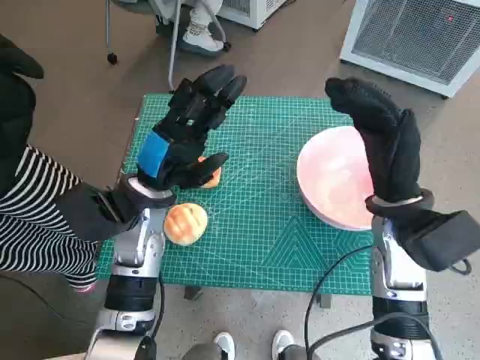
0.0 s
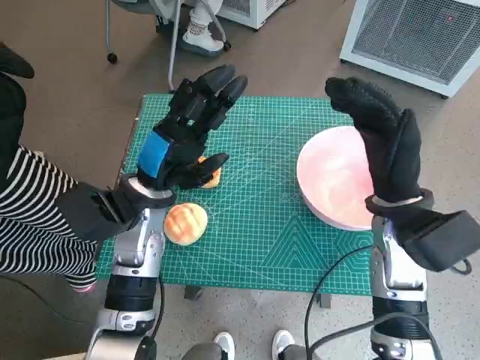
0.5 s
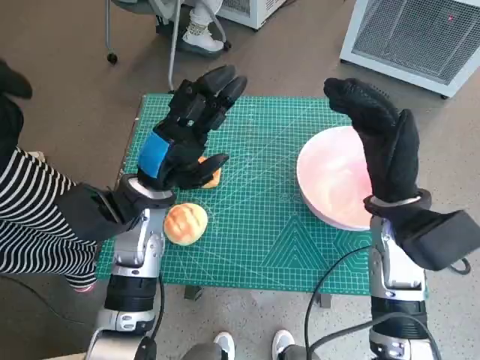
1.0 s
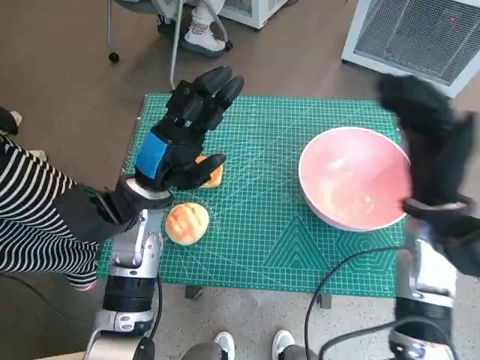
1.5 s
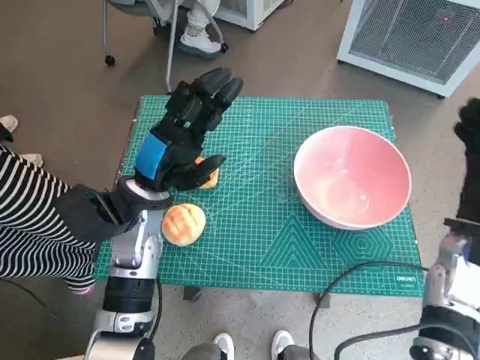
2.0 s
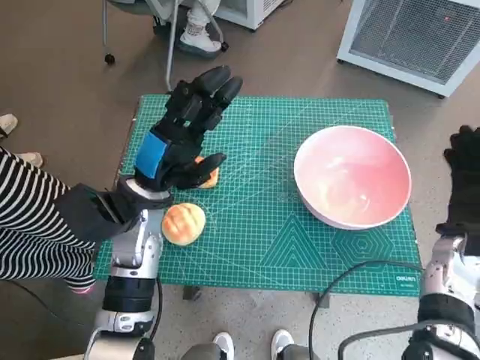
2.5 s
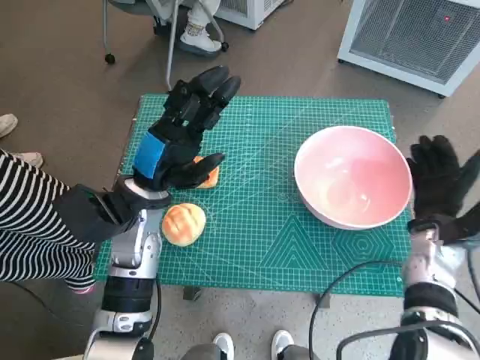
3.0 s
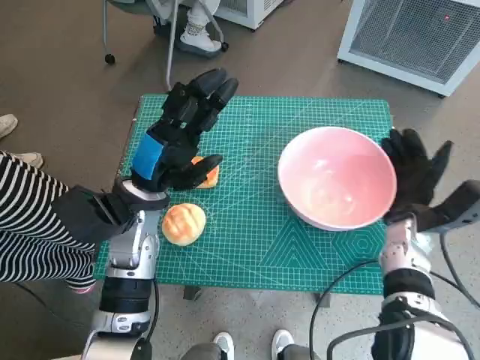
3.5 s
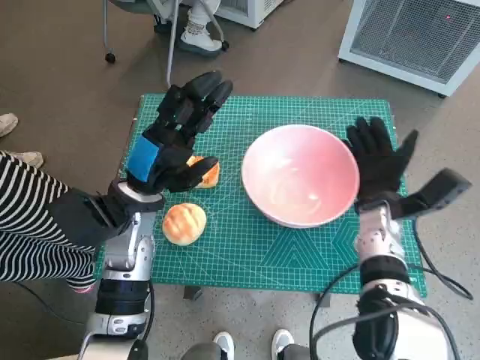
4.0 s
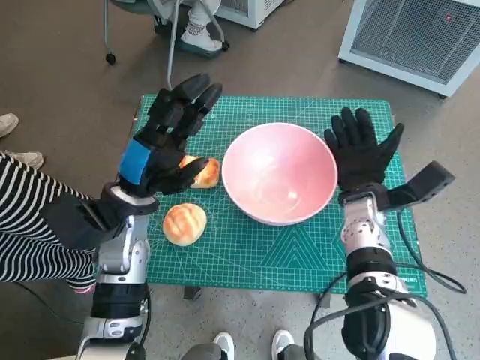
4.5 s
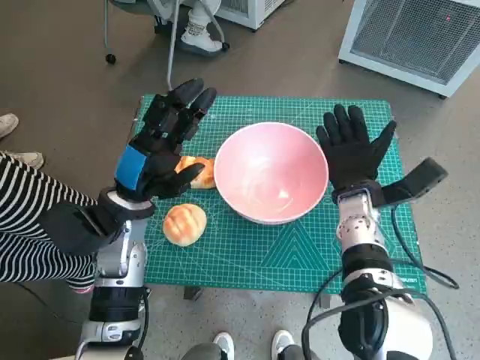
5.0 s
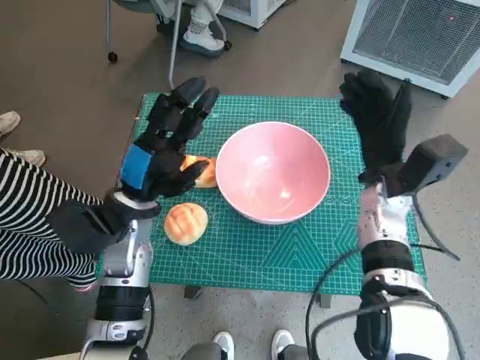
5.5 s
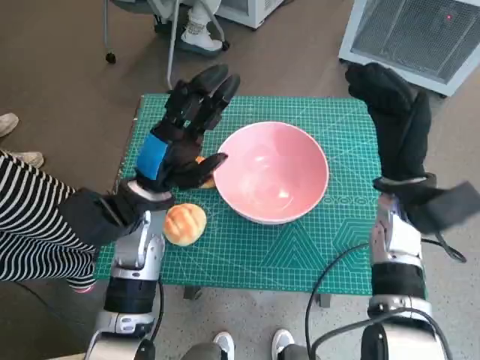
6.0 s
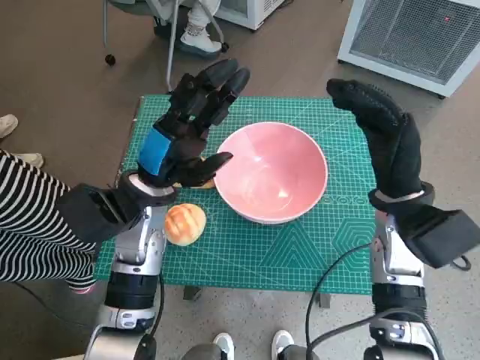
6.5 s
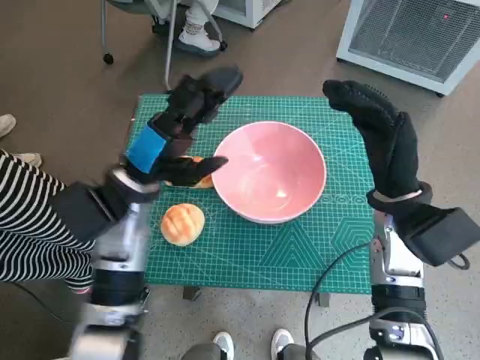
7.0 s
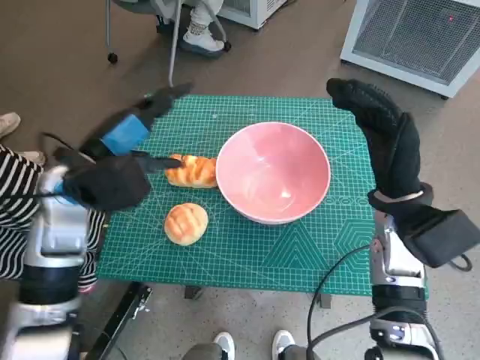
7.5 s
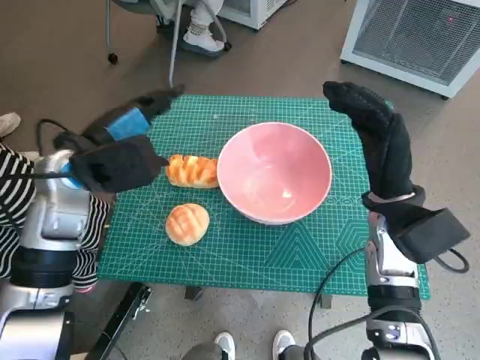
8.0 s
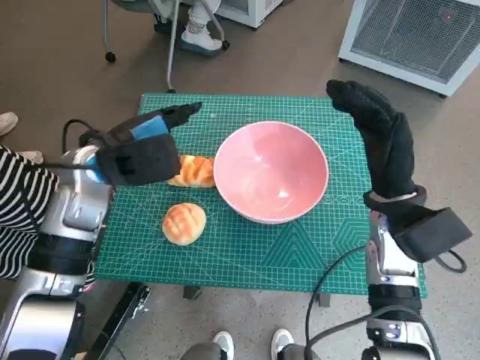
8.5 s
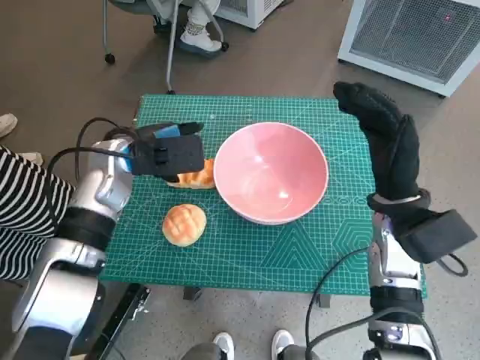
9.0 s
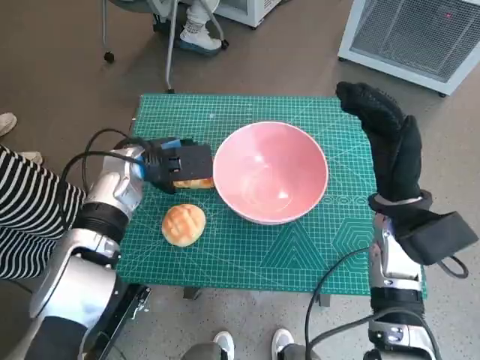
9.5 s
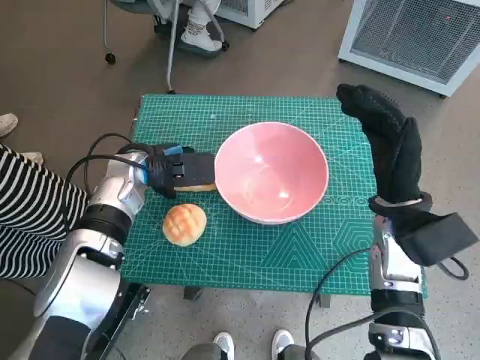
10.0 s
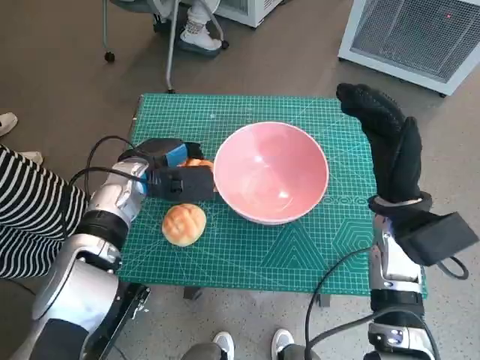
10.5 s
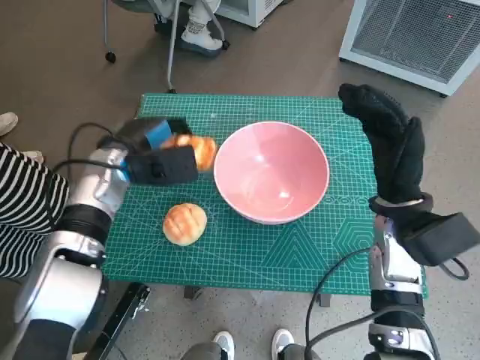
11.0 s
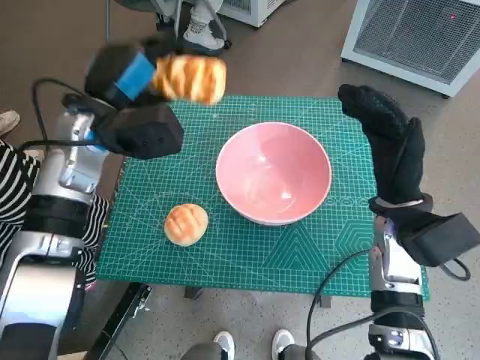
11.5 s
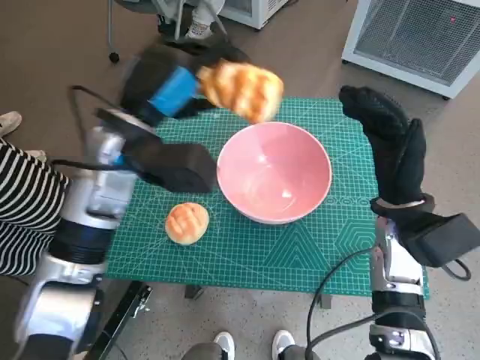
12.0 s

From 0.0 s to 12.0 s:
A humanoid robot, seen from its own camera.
Task of the whole recording: Push the bowl into the center of the table and put the bread into the bowl.
Step, from 0.0 s to 5.0 s: Move the pink bowl to the center of table with right hand.
Step, from 5.5 s to 10.0 s: Grasp the long bread with left hand.
From 2.0 s to 4.0 s: The right hand heads to the left, downward and forward, covering about 10 cm.
From 4.0 s to 6.0 s: The right hand is displaced upward by roughly 10 cm.
From 6.0 s to 8.0 s: The left hand goes about 10 cm upward and to the left.
From 8.0 s to 10.0 s: The left hand moves downward and forward, roughly 10 cm.
From 10.0 s to 12.0 s: The left hand travels upward by about 10 cm.

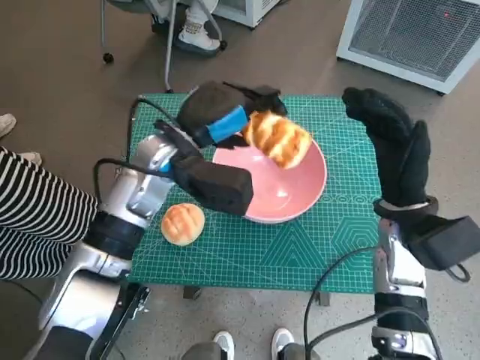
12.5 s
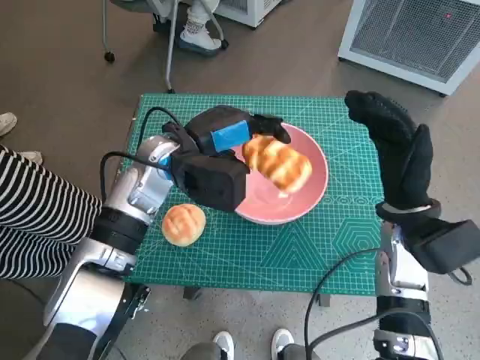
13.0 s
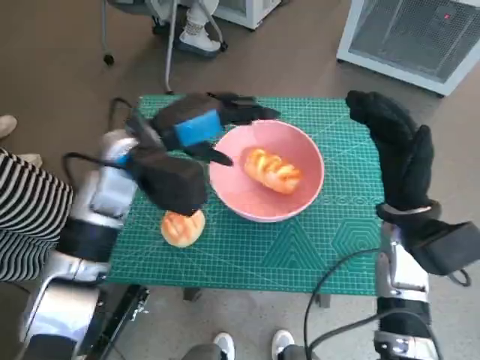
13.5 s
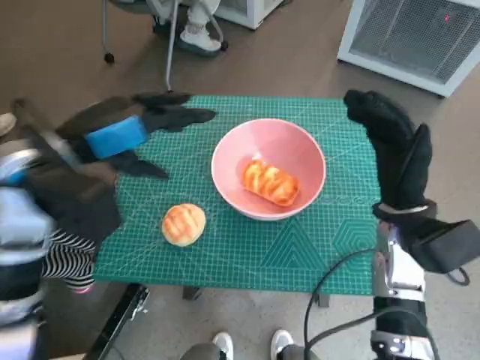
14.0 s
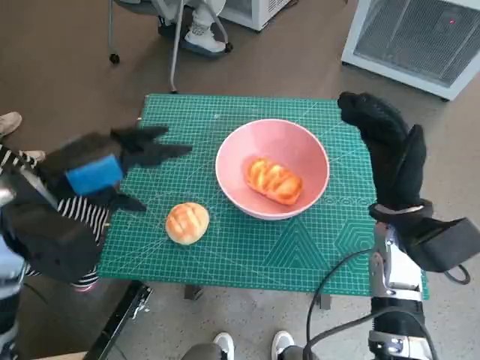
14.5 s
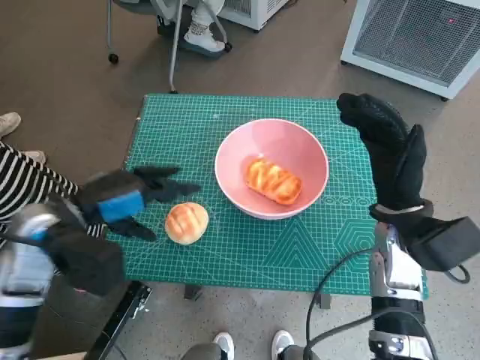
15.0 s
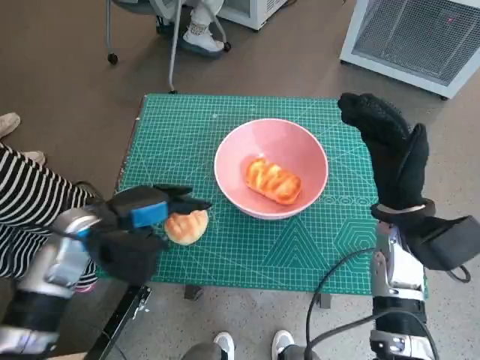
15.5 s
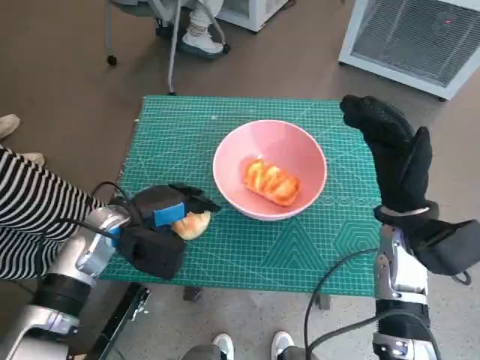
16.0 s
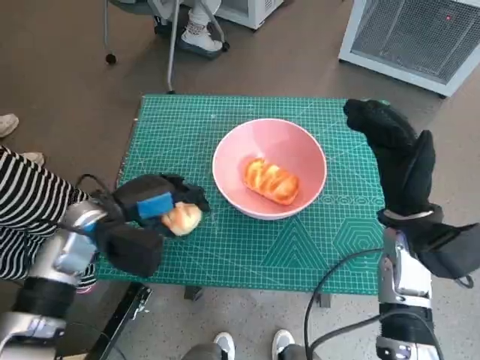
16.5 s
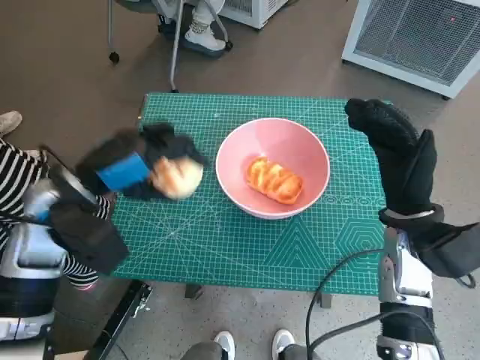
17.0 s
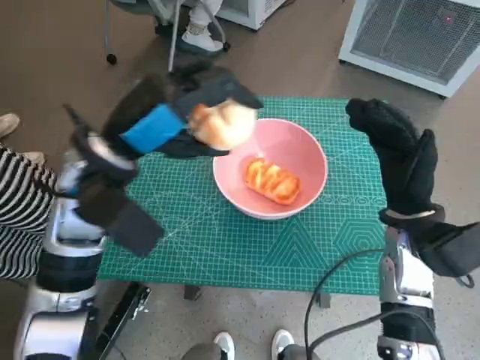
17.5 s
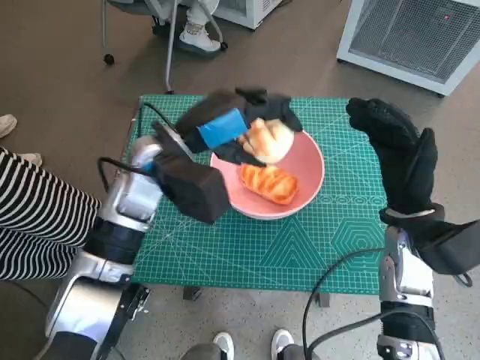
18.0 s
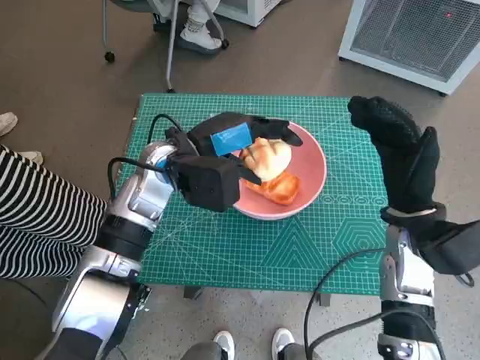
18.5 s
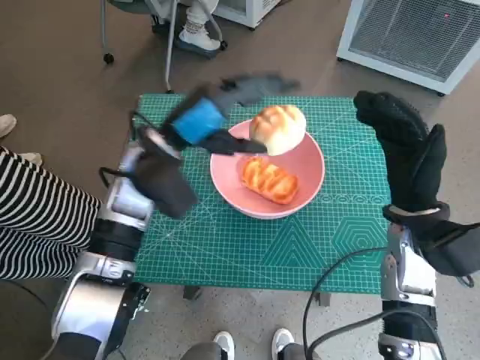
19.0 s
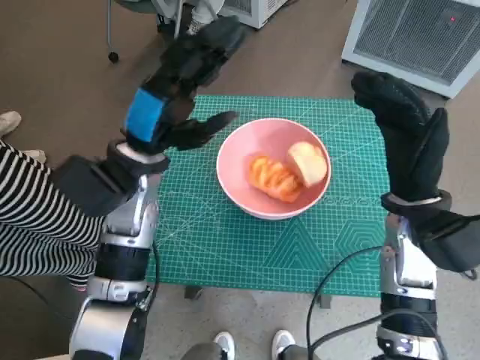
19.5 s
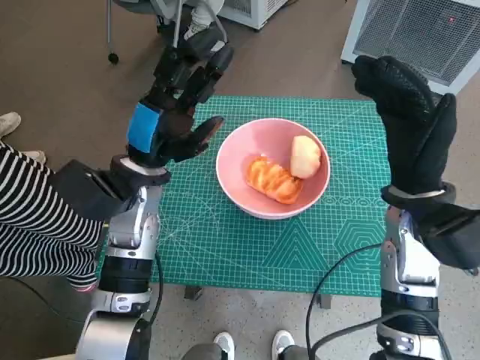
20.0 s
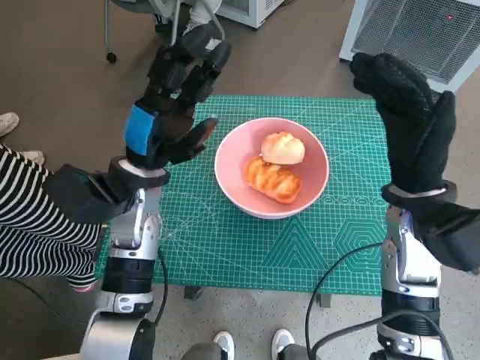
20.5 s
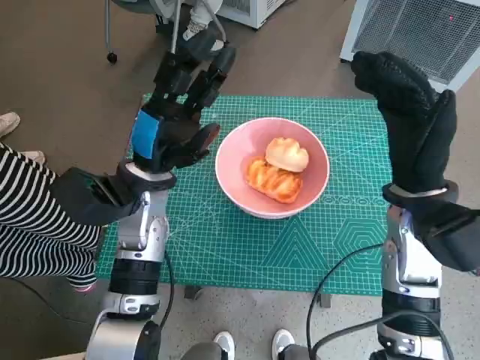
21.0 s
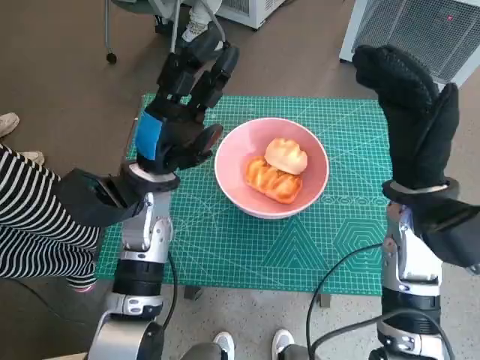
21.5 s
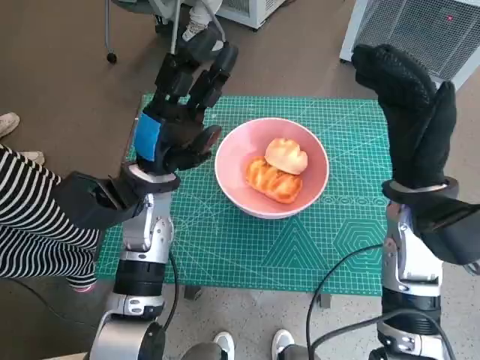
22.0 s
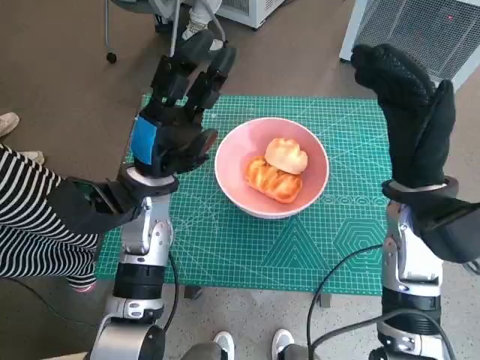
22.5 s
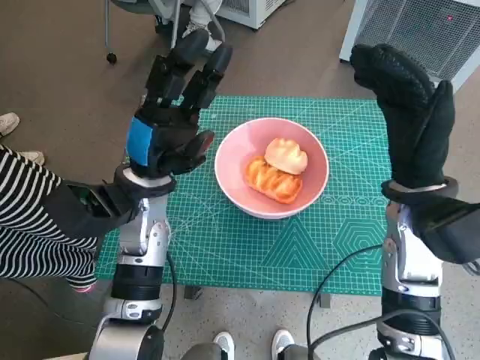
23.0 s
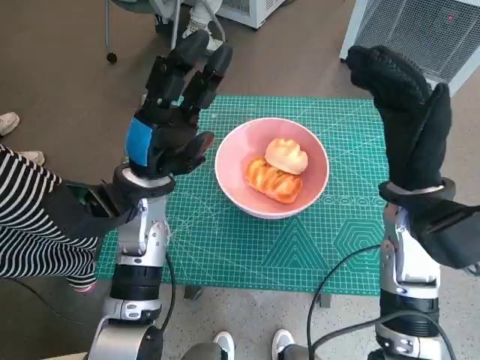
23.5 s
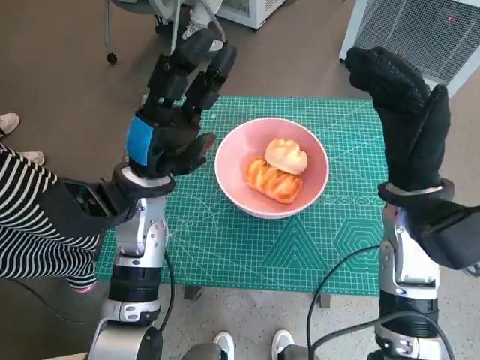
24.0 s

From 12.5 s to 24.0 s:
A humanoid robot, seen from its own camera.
Task of the whole recording: Push the bowl into the center of the table and put the bread into the bowl.
Step, from 13.5 s to 15.5 s: Grasp the round bread with left hand.
Step, from 16.0 s to 19.5 s: Place the round bread in pink bowl with left hand.
From 12.5 s to 14.5 s: The left hand is displaced to the left and backward by some 15 cm.
From 14.5 s to 16.5 s: The left hand shifts approximately 10 cm downward.
From 16.5 s to 18.5 s: The left hand travels to the right, upward and forward by some 15 cm.
From 18.5 s to 20.0 s: The left hand changes place by approximately 5 cm.
From 20.0 s to 22.0 s: The hands move only a little.
From 22.0 s to 24.0 s: The two hands keep their place.

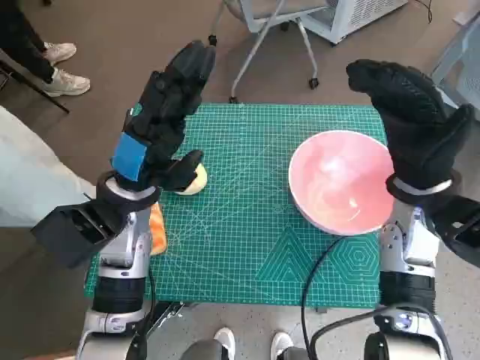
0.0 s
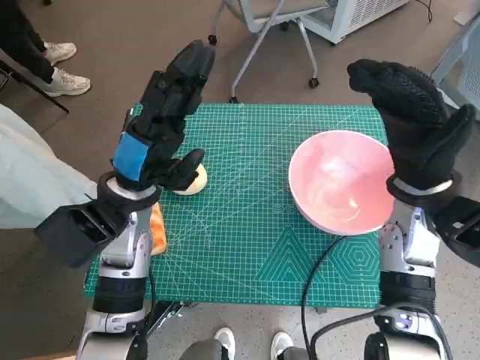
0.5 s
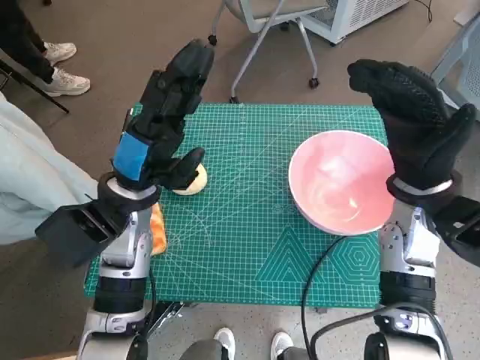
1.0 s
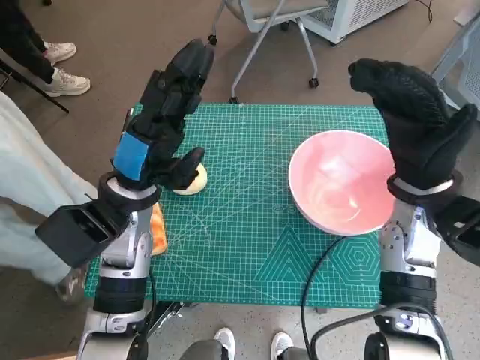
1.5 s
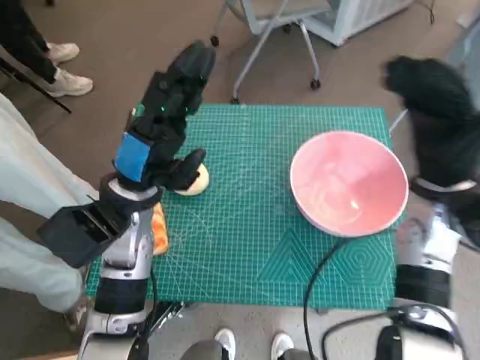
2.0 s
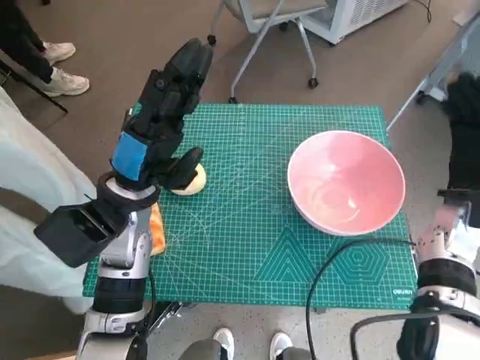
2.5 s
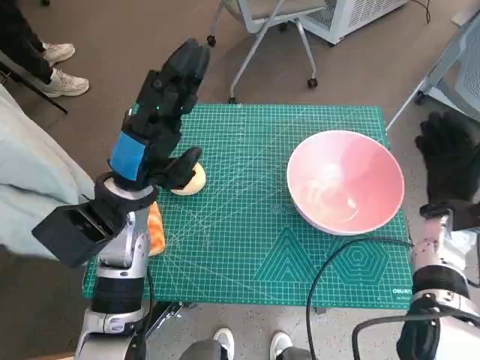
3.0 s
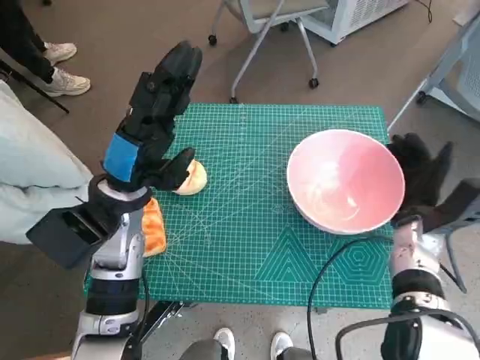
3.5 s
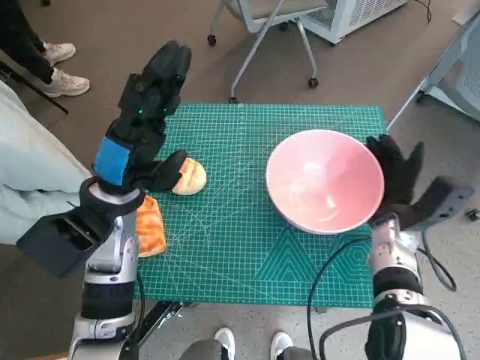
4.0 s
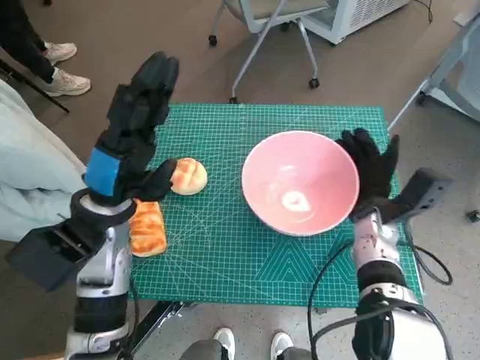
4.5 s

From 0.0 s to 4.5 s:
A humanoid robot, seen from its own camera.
Task of the whole recording: Push the bowl into the center of the table and put the bread into the bowl.
From 2.0 s to 4.5 s: The right hand shifts approximately 10 cm downward.
